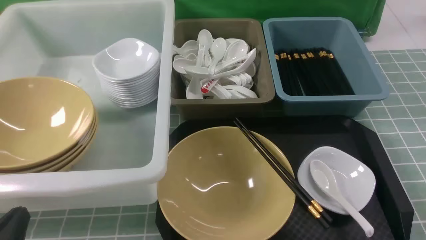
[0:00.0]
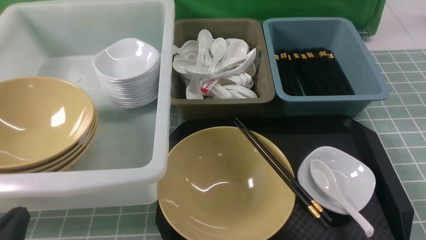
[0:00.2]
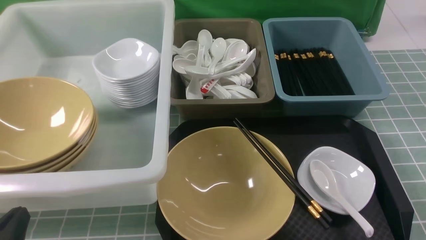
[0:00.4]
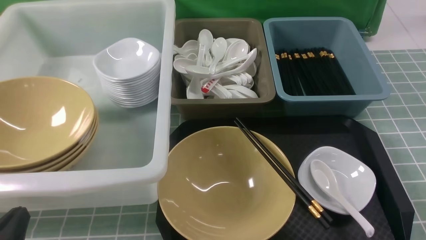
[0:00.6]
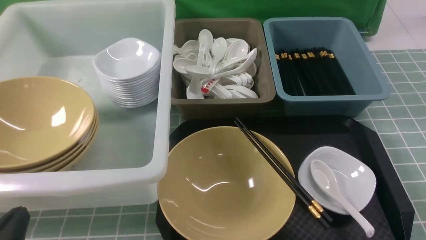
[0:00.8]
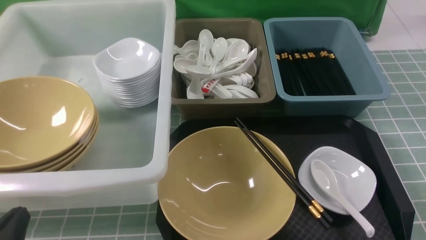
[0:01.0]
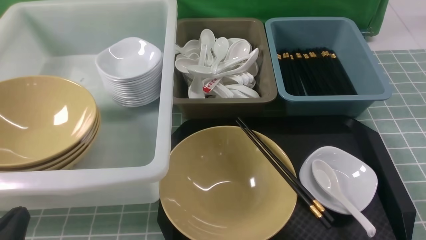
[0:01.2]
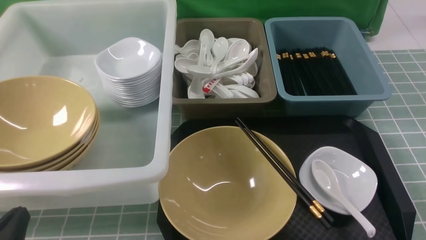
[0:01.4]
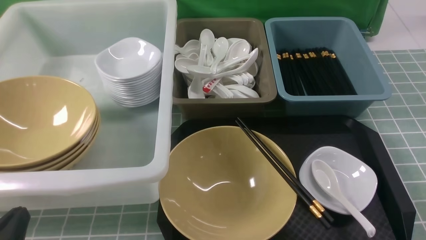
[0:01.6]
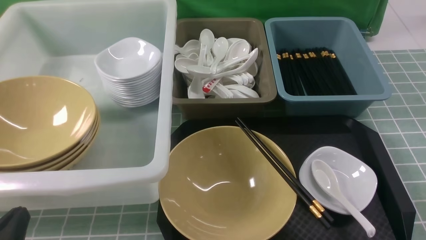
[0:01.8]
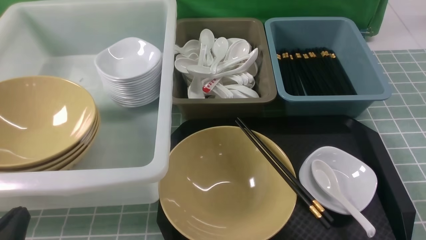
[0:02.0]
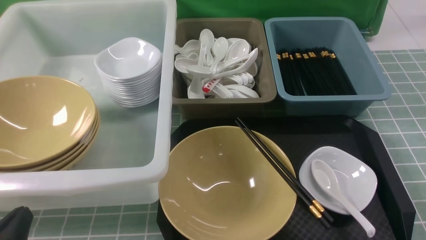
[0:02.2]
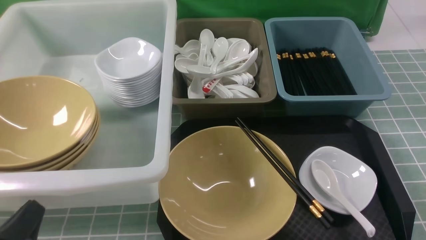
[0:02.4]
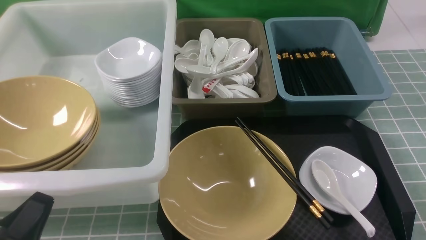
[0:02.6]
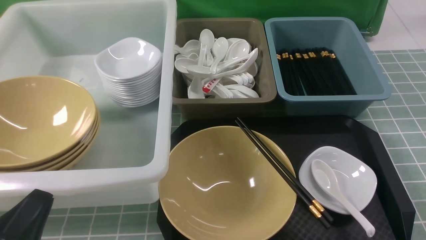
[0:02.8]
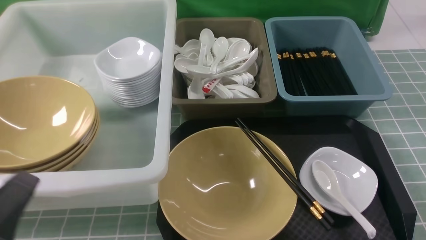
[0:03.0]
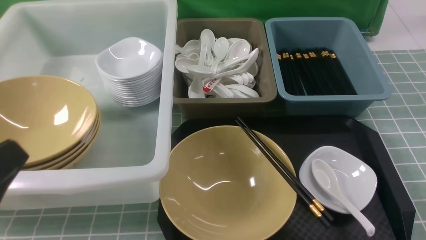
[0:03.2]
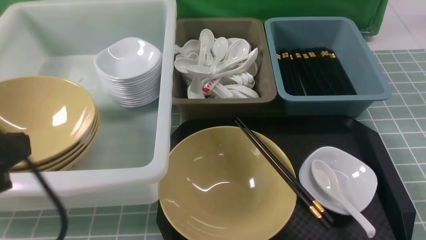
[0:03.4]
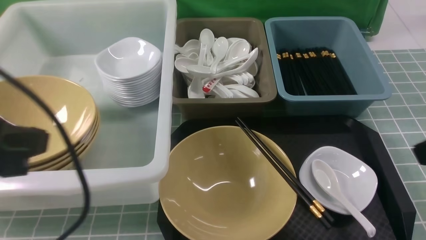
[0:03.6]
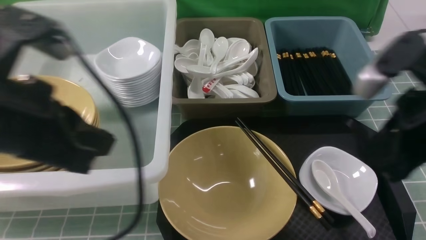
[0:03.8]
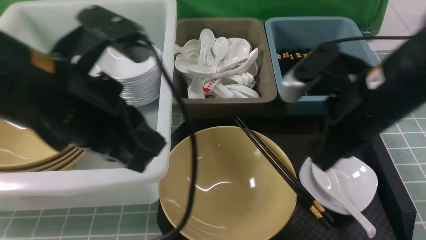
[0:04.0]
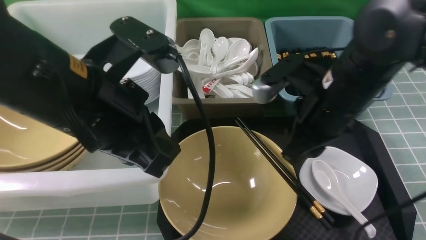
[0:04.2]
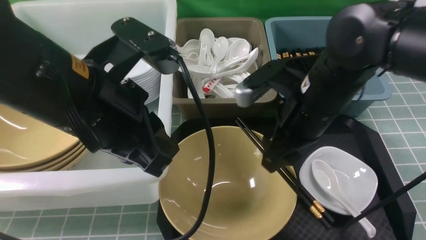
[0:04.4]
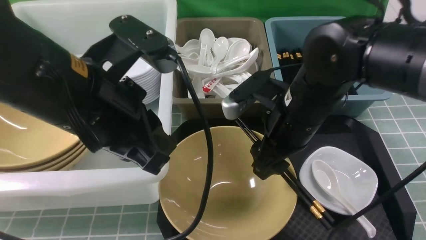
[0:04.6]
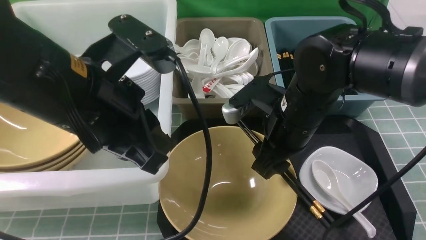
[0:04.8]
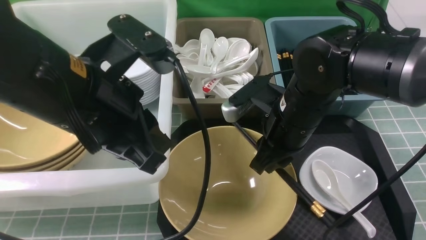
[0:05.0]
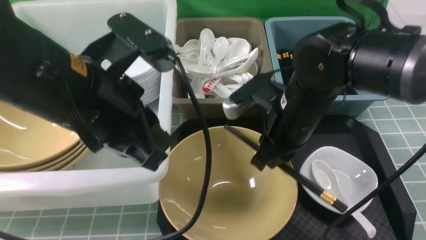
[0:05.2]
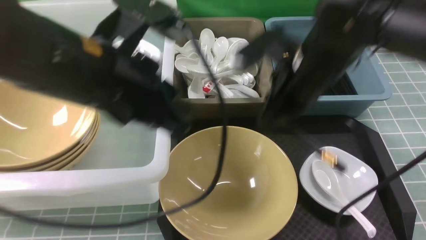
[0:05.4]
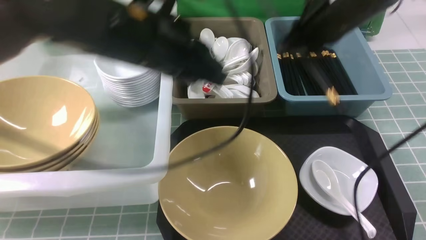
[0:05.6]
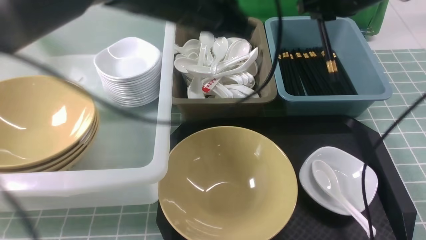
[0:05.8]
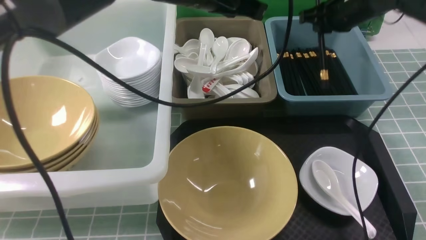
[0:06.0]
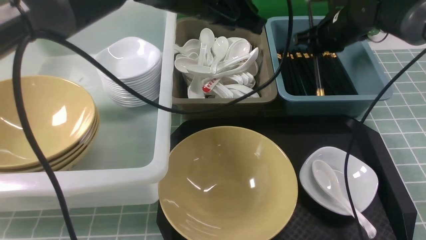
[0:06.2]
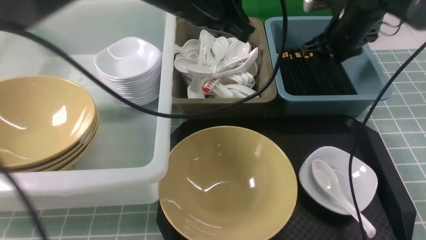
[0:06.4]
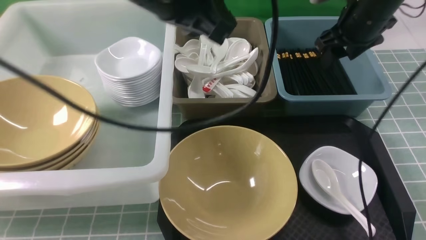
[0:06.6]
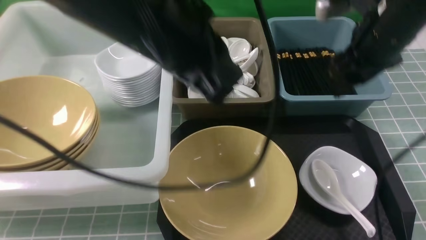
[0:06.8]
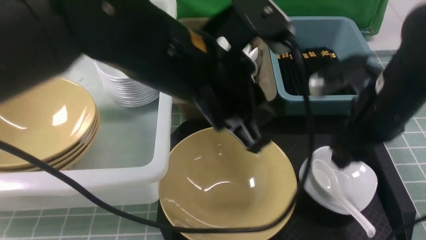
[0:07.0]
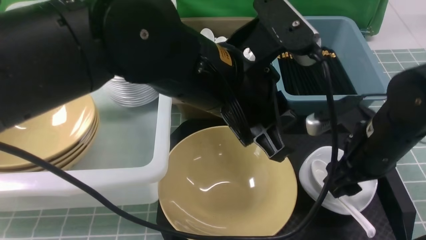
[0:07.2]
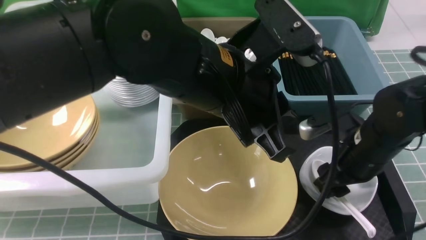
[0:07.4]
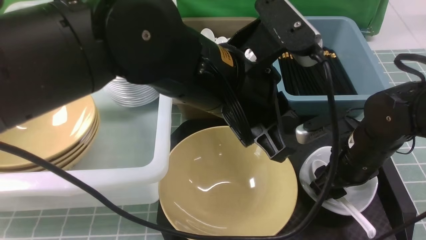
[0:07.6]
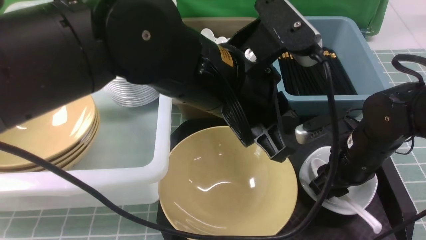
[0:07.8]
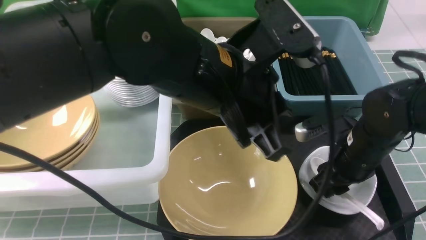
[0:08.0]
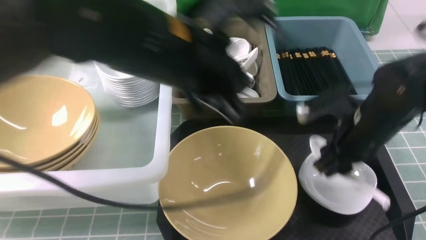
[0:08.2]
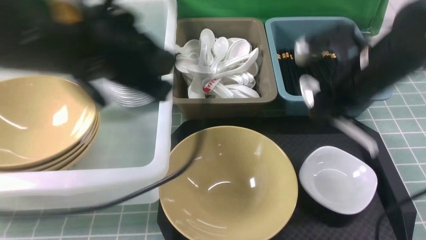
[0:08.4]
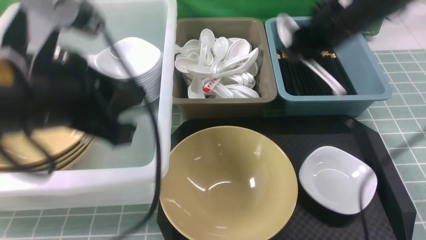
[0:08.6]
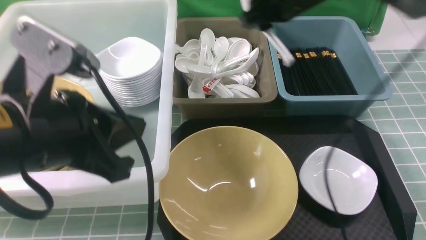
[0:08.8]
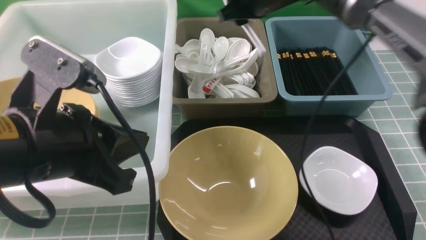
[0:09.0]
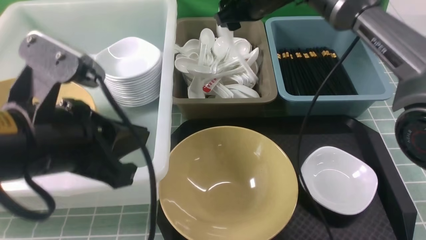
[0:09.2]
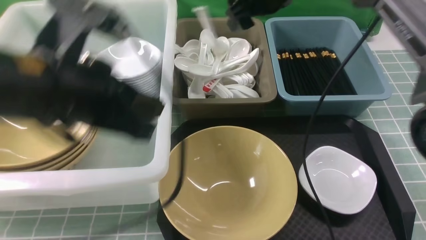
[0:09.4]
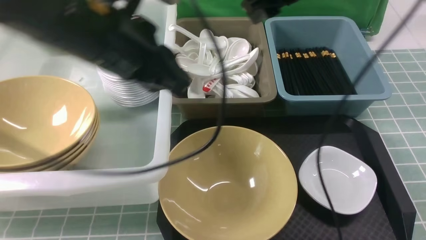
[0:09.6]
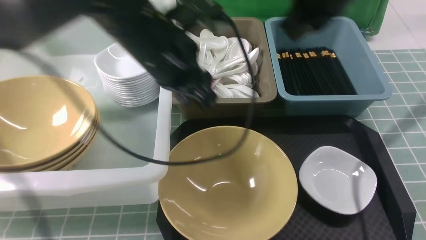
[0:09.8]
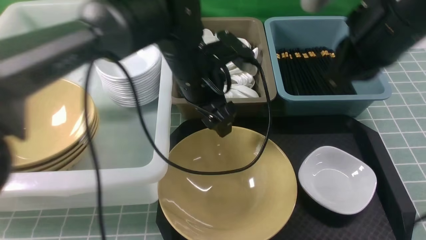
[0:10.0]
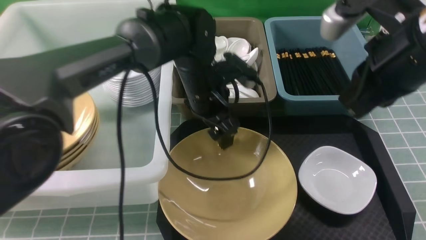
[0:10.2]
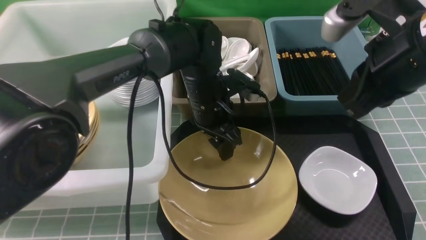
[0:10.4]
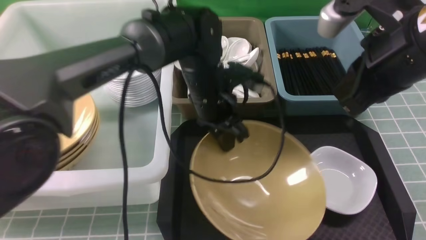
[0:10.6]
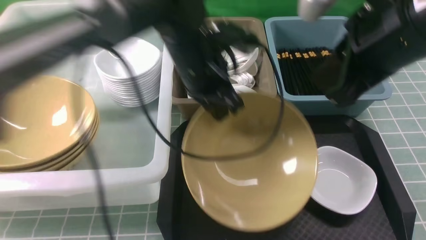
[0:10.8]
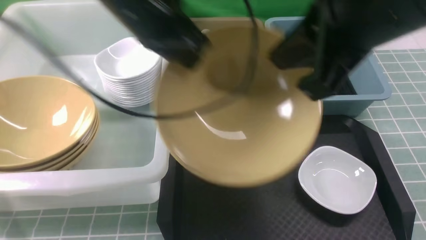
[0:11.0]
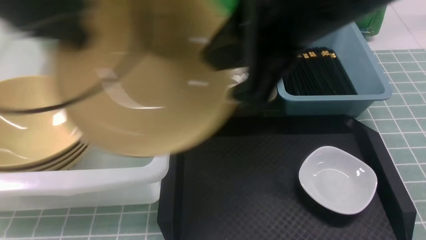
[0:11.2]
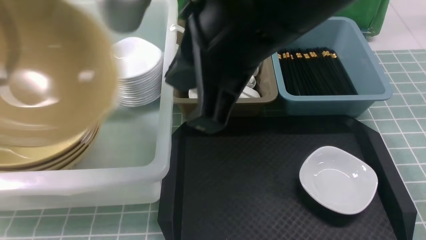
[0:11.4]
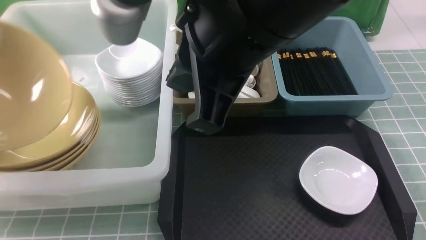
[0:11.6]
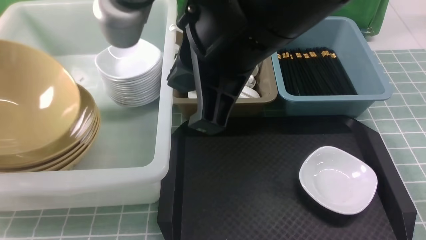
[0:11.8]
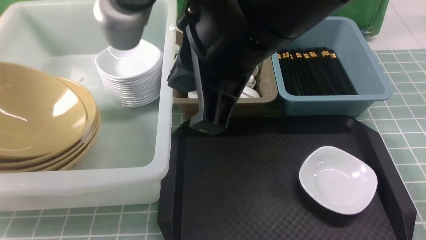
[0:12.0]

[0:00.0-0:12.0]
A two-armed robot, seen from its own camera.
Task of the whole recording: on blue table put chopsticks spoon bowls plates into blue grey white boxes.
Step, 0.0 to 5.2 s: use the right arm to grab the chopsticks.
Step, 5.4 to 6.4 s: use the right arm to put the chopsticks into the small storage box on the right.
Step, 6.6 to 8.0 s: use the right arm to grab the soup spoon in the middle.
Step, 8.2 to 9.4 s: use the right arm to put the soup spoon into the small storage box in the middle.
Step, 9.6 to 10.8 s: use the left arm to grab the yellow noodle bowl on the left.
0.0 to 1.6 s: Neither gripper changes place.
1.6 to 3.0 s: The left gripper travels upward by approximately 10 cm; the right gripper ends up some 5 cm from where it was.
3.0 to 4.4 s: The left gripper travels forward, to the right and upward by some 20 cm. The right gripper heads forward and to the left, covering some 30 cm, and opens its fingers.
4.4 to 6.0 s: The two grippers go about 20 cm forward and to the right. The right gripper closes.
6.0 to 7.6 s: The left gripper is displaced backward by roughly 15 cm. The right gripper travels backward and downward by some 20 cm, and opens up.
7.6 to 9.0 s: The right gripper travels forward, upward and to the left by some 25 cm; the left gripper shifts about 15 cm to the left.
9.0 to 10.4 s: The right gripper heads backward and to the right, covering about 25 cm, and closes up. Meanwhile the left gripper is displaced forward, to the right and downward by roughly 30 cm, and opens up.
10.4 to 12.0 s: The right gripper moves to the left and upward, about 15 cm, while the left gripper is displaced to the left by roughly 40 cm, and closes and opens again.

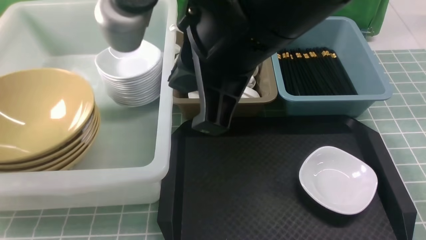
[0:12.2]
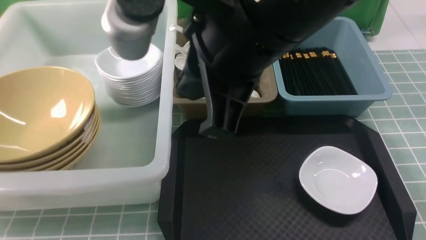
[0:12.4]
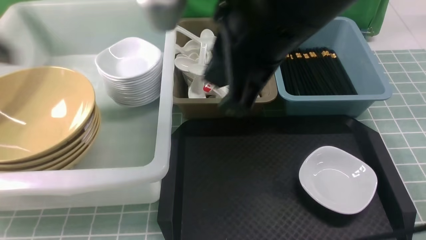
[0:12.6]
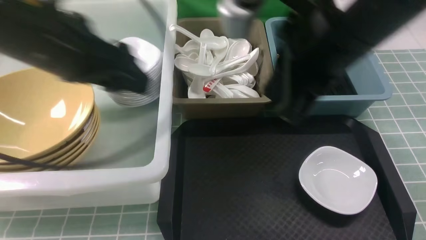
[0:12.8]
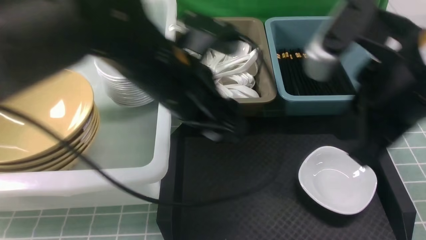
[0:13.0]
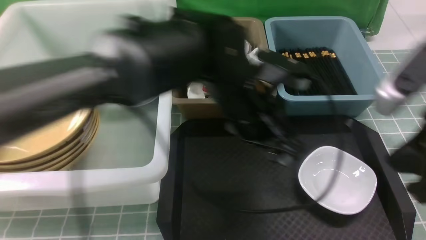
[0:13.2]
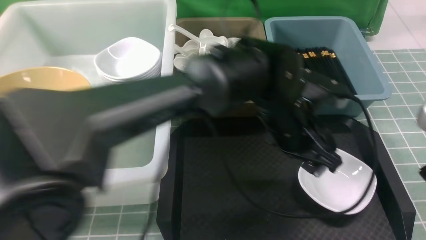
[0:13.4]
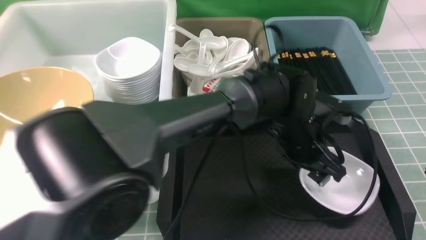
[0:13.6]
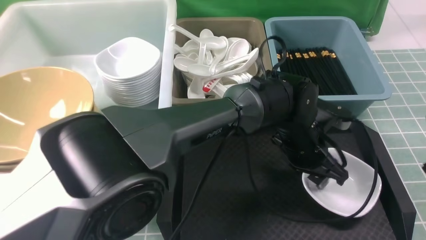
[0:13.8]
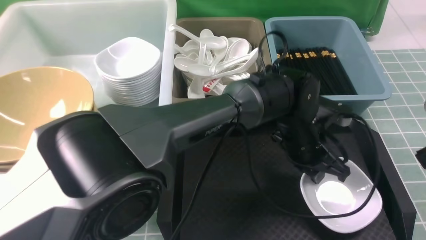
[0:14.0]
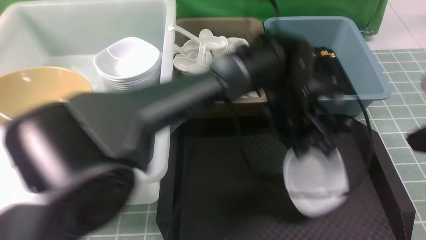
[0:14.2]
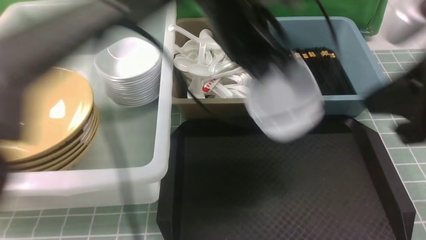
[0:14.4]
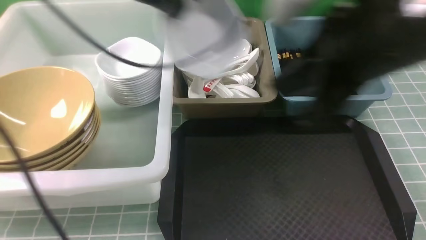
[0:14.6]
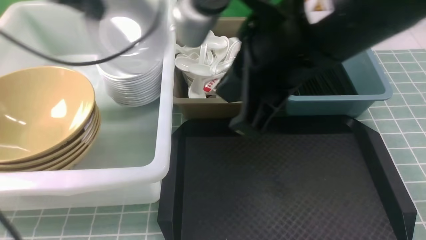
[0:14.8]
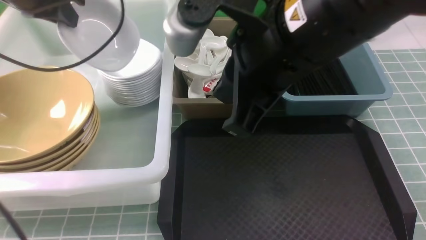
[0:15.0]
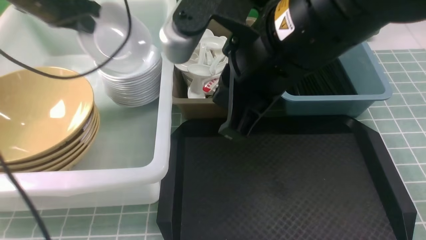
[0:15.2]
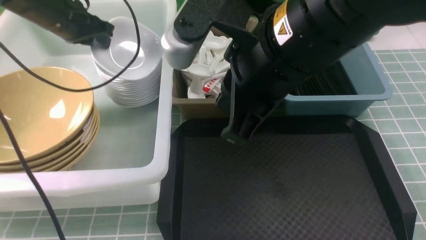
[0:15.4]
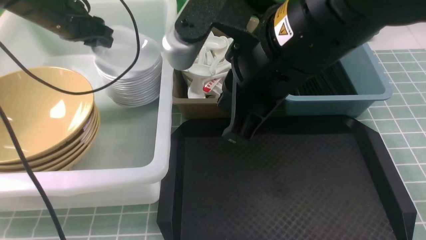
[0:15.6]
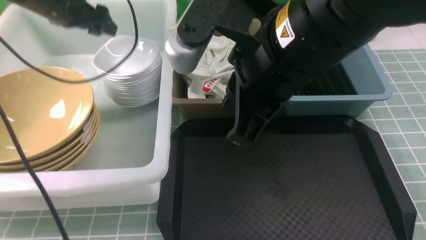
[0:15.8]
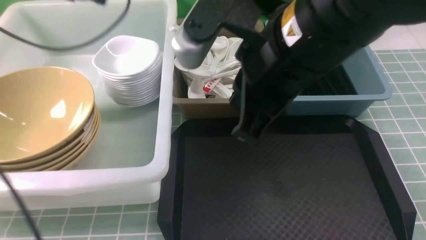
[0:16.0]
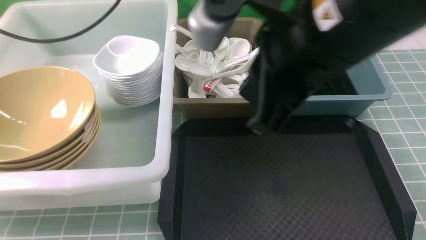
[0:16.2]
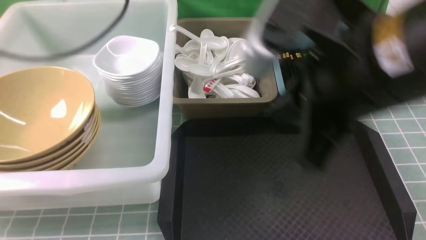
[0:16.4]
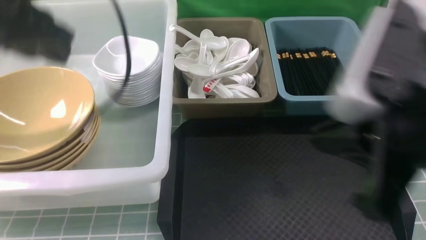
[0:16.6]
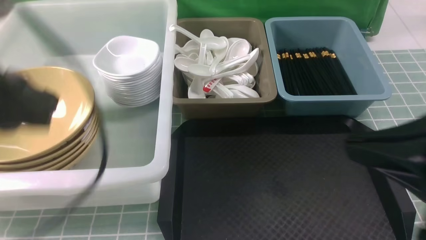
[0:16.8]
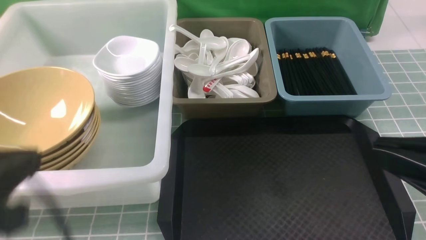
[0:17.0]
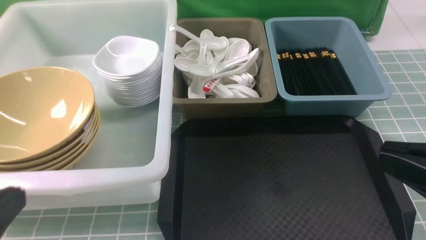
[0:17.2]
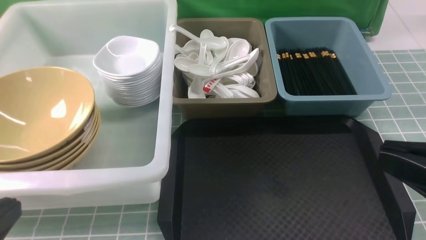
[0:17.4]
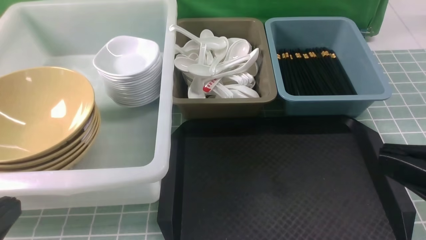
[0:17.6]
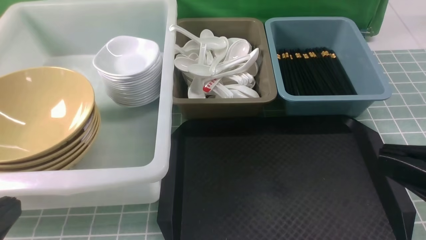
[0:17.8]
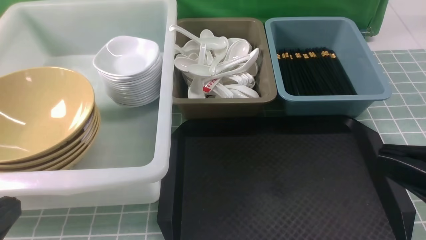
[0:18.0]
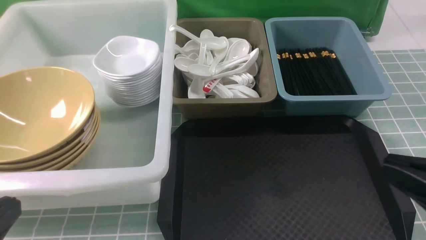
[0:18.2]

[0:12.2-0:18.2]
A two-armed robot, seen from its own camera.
Task of the whole recording: on blue table put chopsticks spoon bowls plates into blue grey white boxes.
Step, 12.6 to 14.0 s: use the left arm to grab the plate.
Step, 14.2 to 15.8 s: use the left arm to put the plate into the large storage box on the left.
12.2 to 13.8 s: The right gripper travels to the right and downward by approximately 25 cm, while the left gripper goes roughly 50 cm to the right, and closes up.
13.8 to 15.2 s: The left gripper travels to the left by about 40 cm, and closes. The right gripper heads to the left and forward, covering approximately 20 cm.
15.2 to 16.6 s: The right gripper goes roughly 15 cm to the right and backward; the left gripper heads backward and upward, covering about 20 cm, and opens, then closes once more.
16.6 to 18.2 s: The right gripper travels to the right, downward and backward by approximately 10 cm. The left gripper shifts approximately 25 cm backward and downward.
